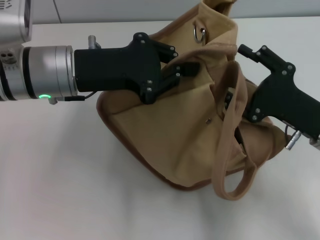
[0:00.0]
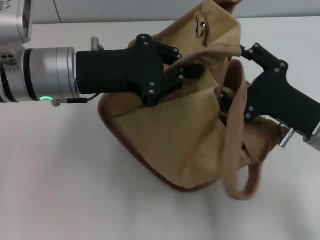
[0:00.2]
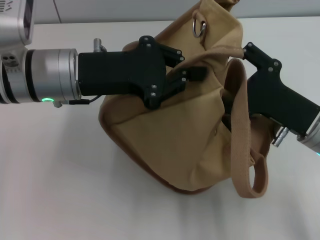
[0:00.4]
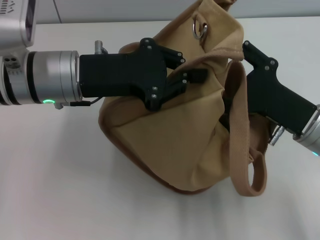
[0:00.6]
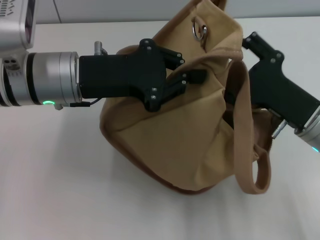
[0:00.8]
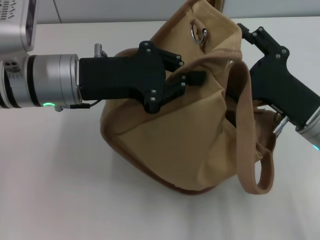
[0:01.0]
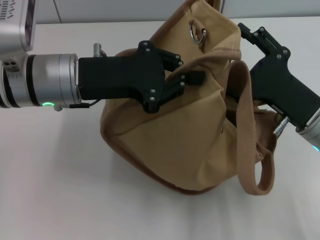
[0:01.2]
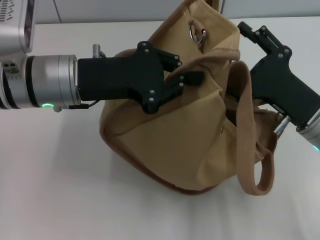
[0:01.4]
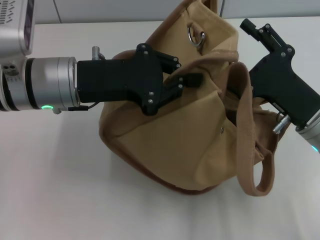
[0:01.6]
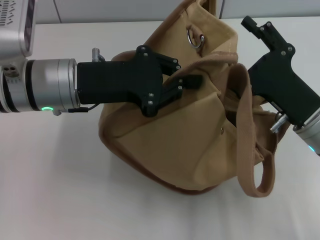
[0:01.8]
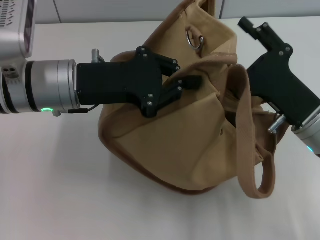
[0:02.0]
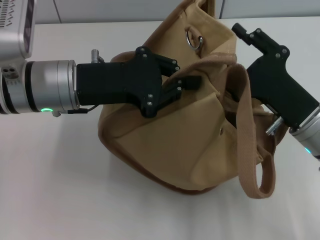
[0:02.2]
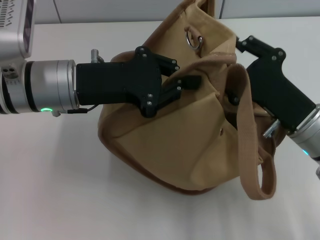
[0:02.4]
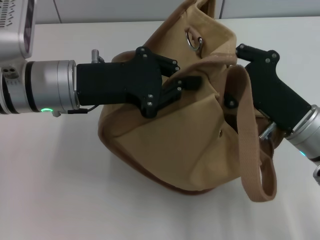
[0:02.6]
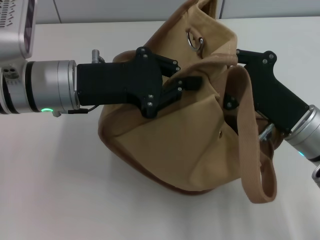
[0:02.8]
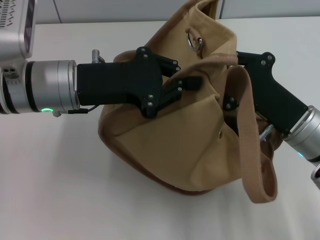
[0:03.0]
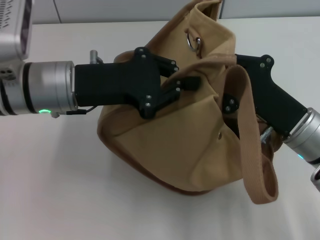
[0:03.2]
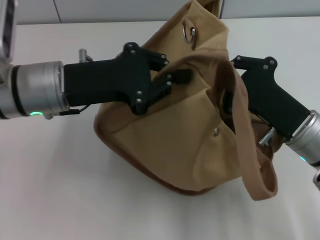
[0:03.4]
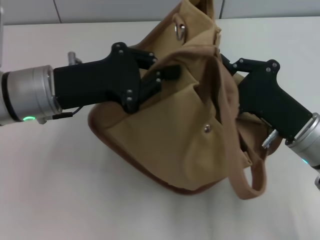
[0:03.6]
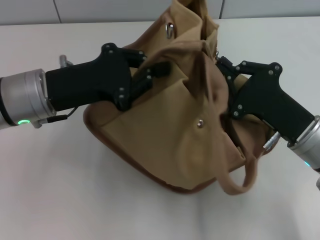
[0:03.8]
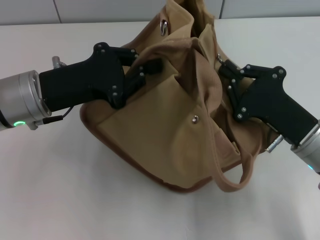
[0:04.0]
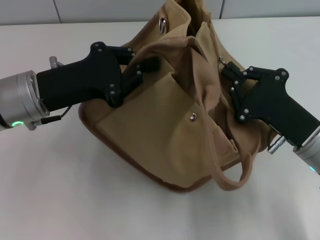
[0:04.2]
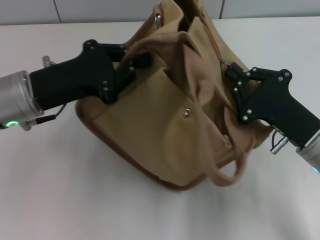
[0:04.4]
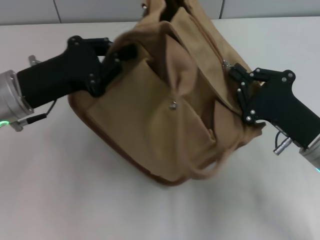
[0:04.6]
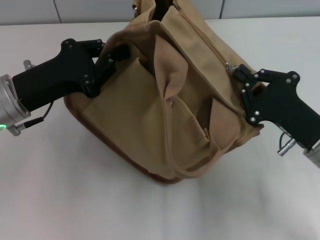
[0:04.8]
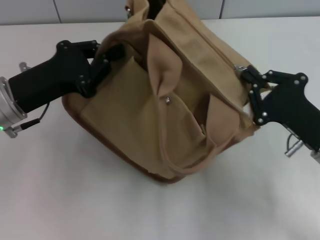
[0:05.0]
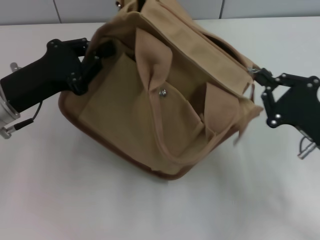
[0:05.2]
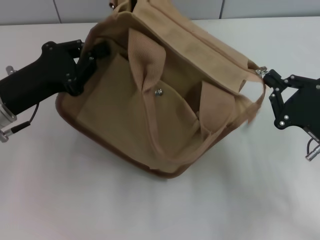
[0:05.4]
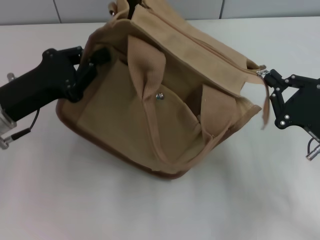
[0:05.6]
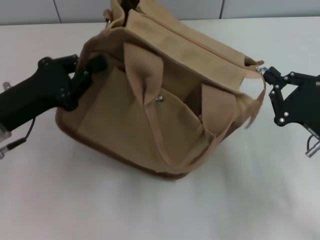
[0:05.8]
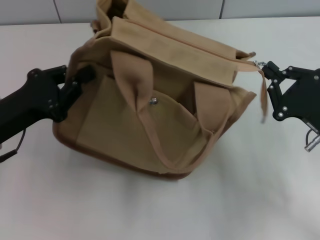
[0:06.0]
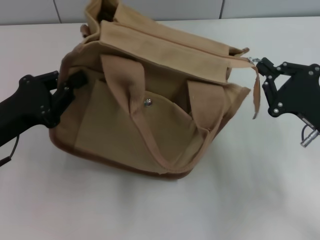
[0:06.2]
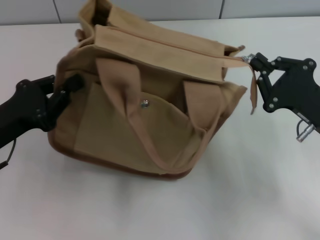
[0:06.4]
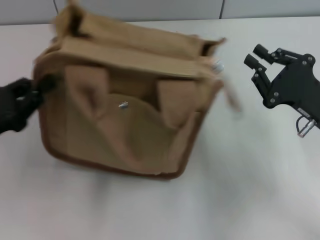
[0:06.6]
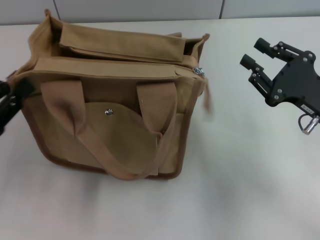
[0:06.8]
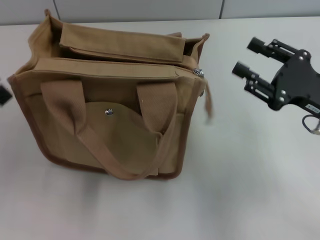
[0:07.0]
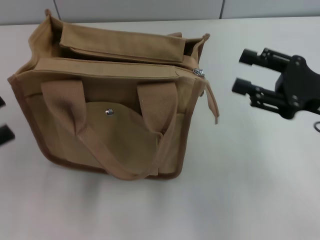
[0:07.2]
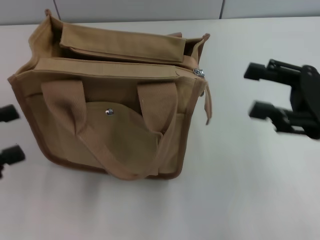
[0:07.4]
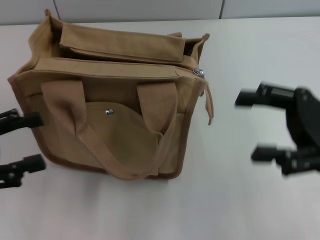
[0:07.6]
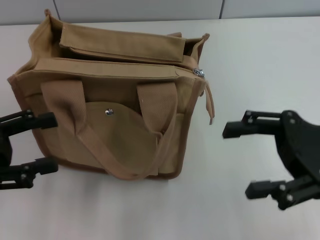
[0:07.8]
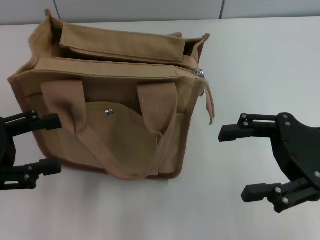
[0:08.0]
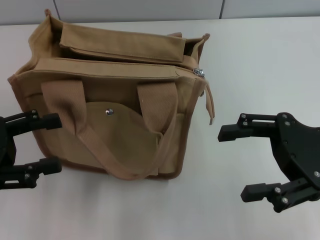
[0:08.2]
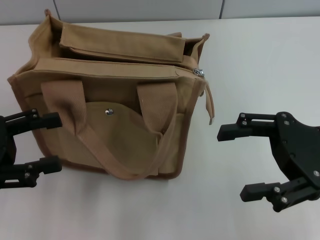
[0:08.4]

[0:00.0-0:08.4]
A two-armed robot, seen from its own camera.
Step, 0:00.0 to 0:06.4: Pull open the zipper with your right hand.
Step, 0:06.8 to 0:07.0: Grab the bag with your left hand.
0:01.4 to 0:02.8: The right gripper closes its fingers.
0:02.8 to 0:04.2: The left gripper changes place by about 5 cm.
0:04.2 to 0:05.6: The right gripper travels to the right by roughly 5 cm. The left gripper ends up some 5 cm from where it was.
0:05.6 to 0:07.0: The left gripper shifts approximately 15 cm to the left and backward, and opens its fingers. Meanwhile the right gripper changes place by about 5 cm, and opens.
0:07.0 to 0:08.4: The left gripper opens its fingers, while the right gripper ends up some 5 cm from where it was, and opens its fingers.

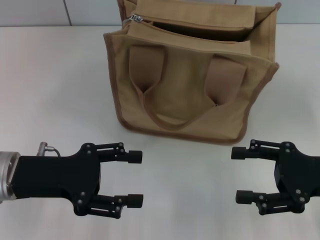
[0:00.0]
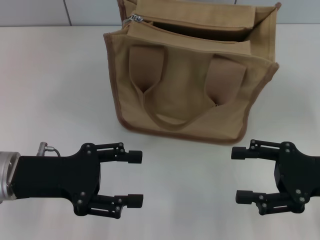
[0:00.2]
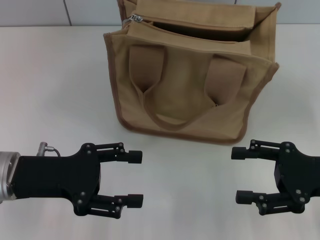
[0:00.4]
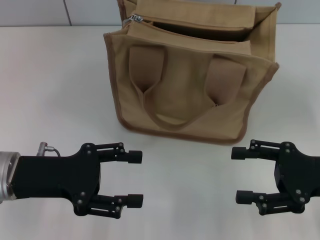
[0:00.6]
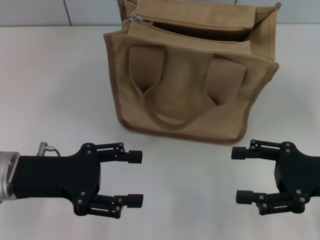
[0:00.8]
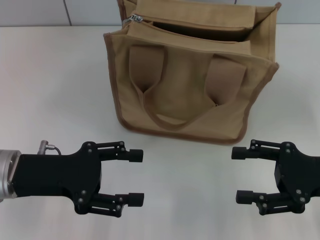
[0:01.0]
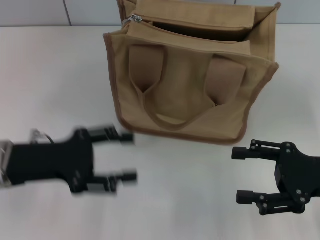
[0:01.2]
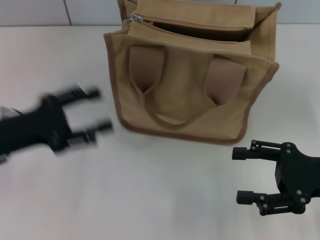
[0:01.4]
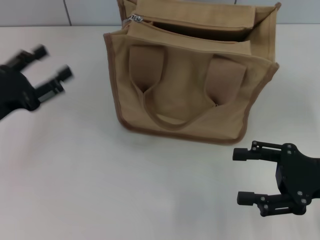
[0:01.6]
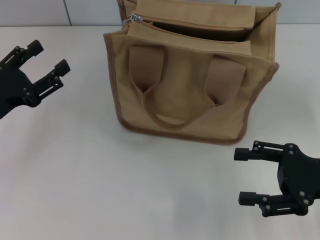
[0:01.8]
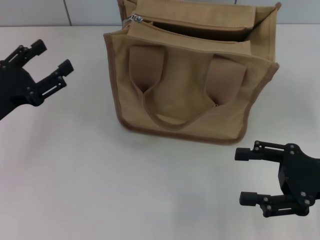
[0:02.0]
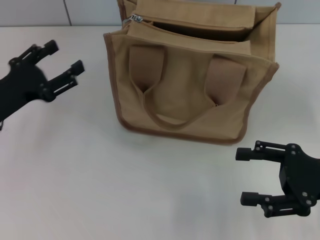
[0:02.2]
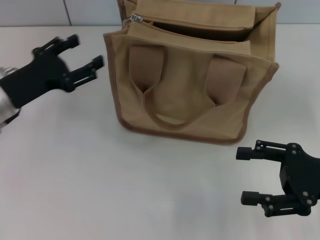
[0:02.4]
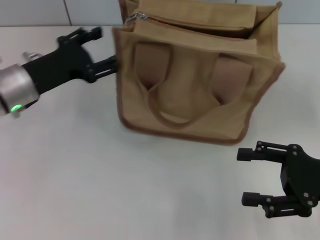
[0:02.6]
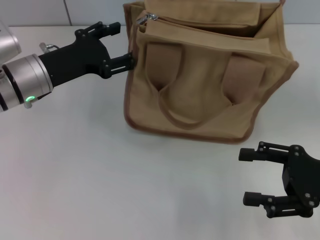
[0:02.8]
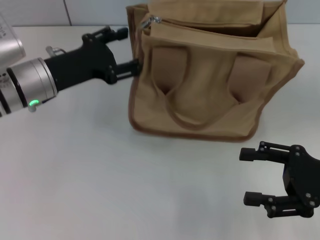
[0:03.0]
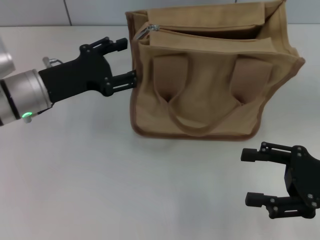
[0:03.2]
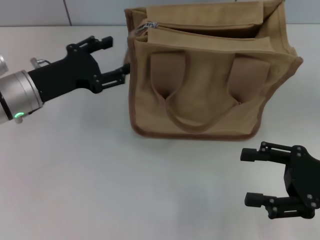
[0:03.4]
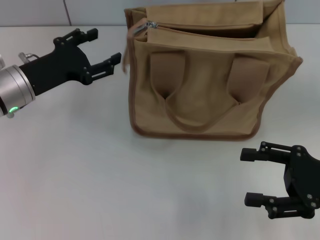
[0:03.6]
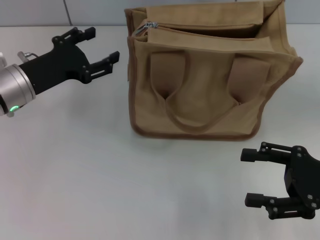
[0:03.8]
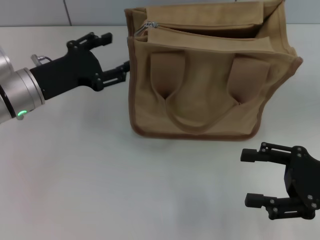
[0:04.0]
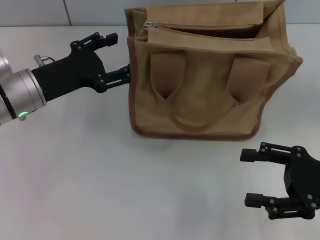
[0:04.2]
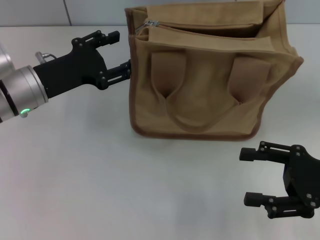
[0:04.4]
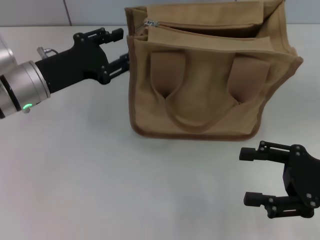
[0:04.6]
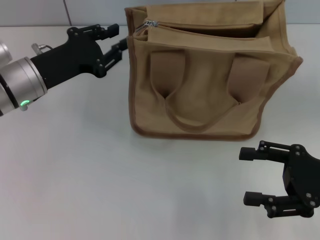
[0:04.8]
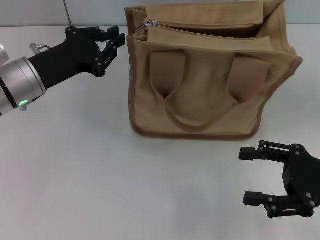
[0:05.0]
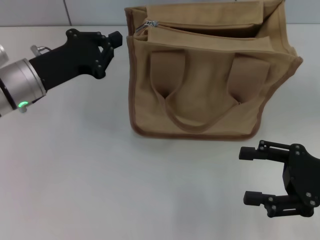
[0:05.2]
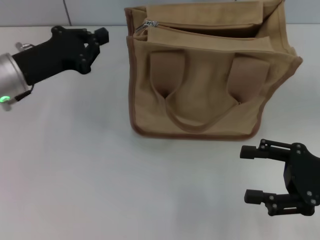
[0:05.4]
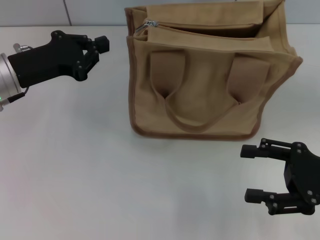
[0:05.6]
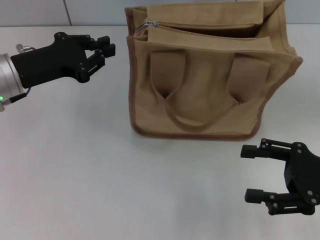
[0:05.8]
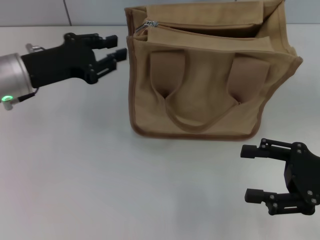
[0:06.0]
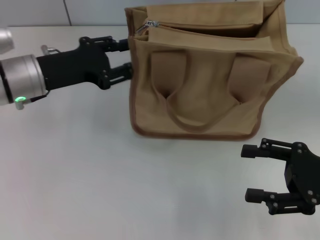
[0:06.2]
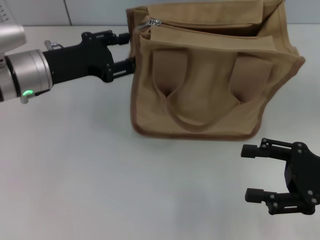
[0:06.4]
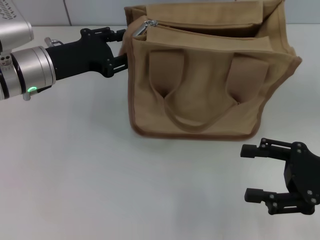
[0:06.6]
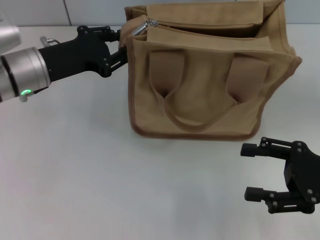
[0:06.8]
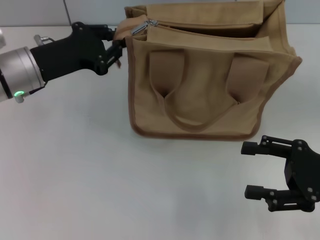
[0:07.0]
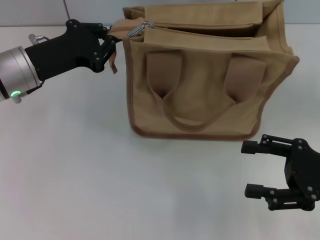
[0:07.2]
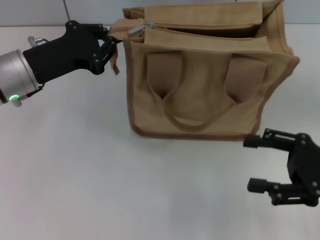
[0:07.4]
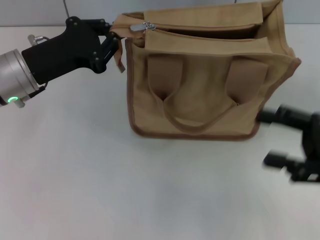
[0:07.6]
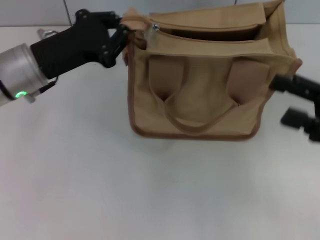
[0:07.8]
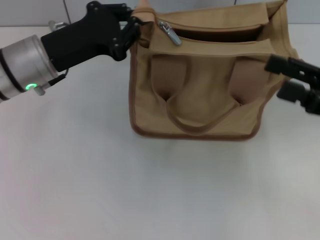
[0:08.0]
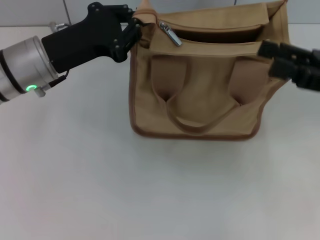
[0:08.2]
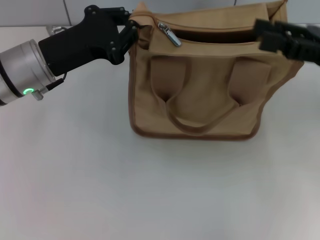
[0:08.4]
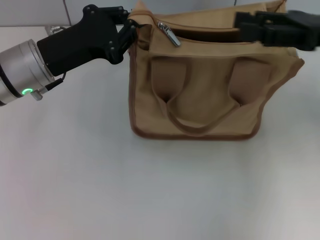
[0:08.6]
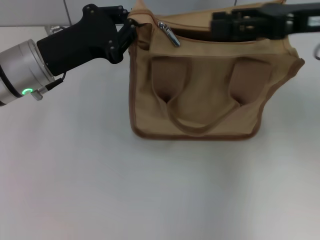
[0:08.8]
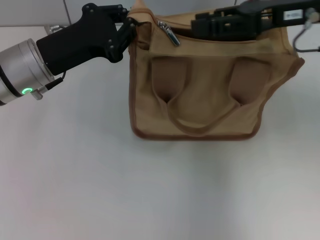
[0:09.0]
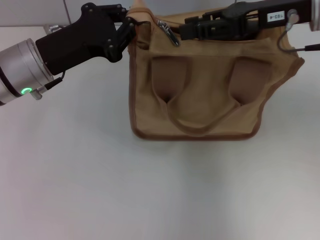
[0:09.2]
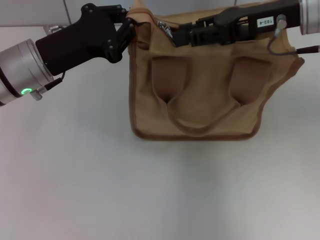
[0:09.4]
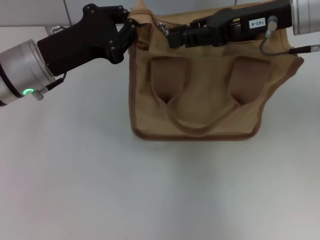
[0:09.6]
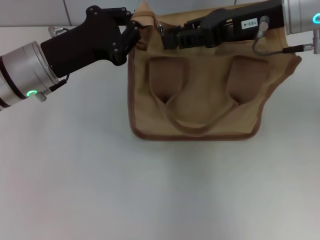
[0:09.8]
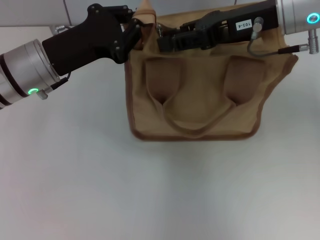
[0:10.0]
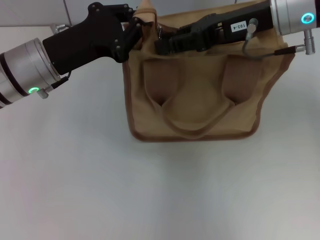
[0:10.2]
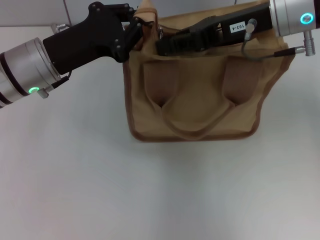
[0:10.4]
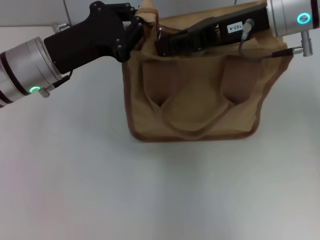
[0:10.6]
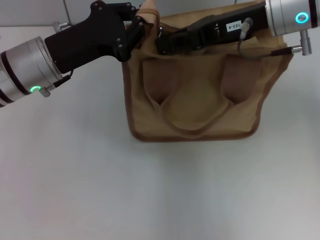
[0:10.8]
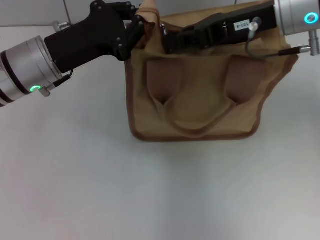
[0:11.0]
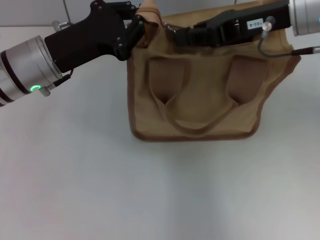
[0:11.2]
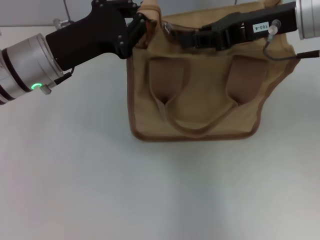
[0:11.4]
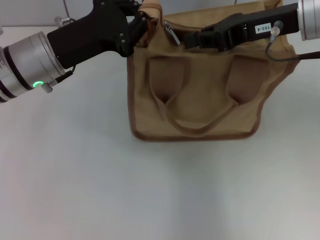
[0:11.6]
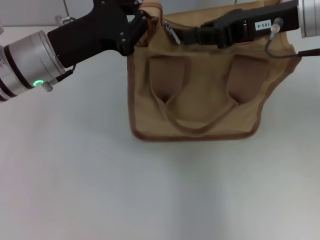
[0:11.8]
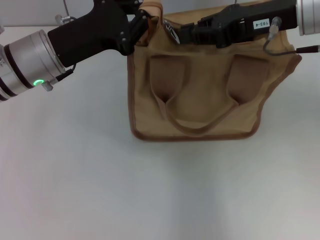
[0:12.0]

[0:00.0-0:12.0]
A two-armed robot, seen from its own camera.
0:00.0 to 0:01.6: The left gripper is displaced to the left by about 5 cm.
0:01.6 to 0:03.0: The left gripper shifts approximately 15 cm forward and to the right.
0:03.0 to 0:04.4: The grippers move only a little.
0:04.4 to 0:06.0: The left gripper closes up.
0:06.0 to 0:07.6: The left gripper opens, then closes once more.
0:07.6 to 0:09.0: The right gripper goes about 20 cm forward, upward and to the left.
0:09.0 to 0:10.4: The right gripper goes some 5 cm to the left.
0:10.4 to 0:12.0: The grippers make only small movements.

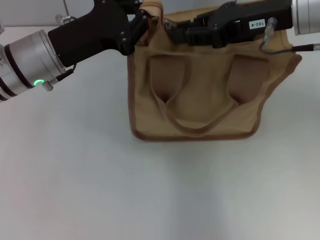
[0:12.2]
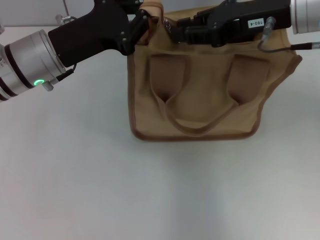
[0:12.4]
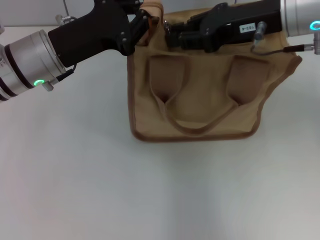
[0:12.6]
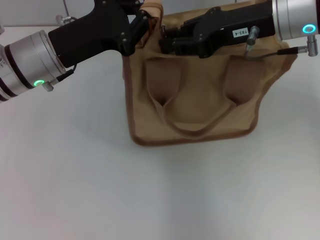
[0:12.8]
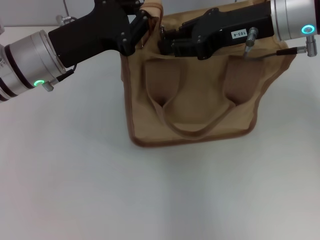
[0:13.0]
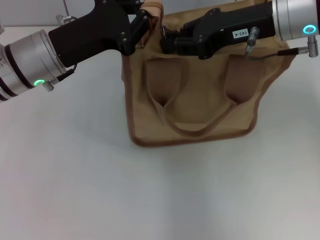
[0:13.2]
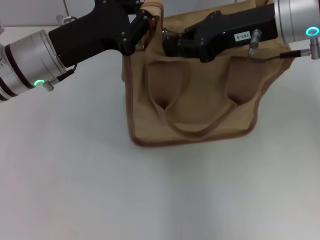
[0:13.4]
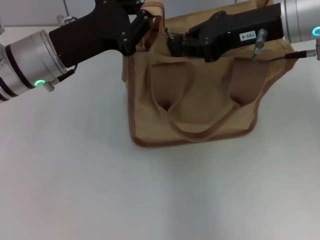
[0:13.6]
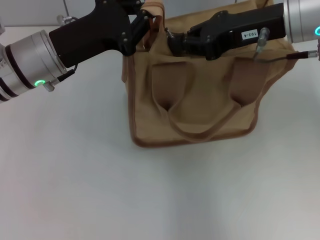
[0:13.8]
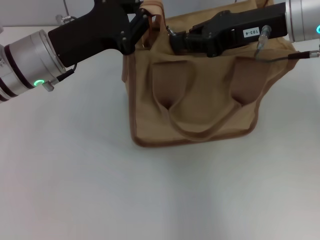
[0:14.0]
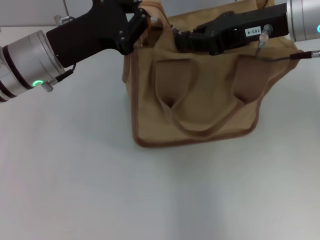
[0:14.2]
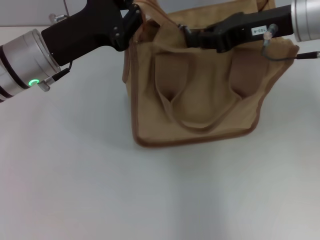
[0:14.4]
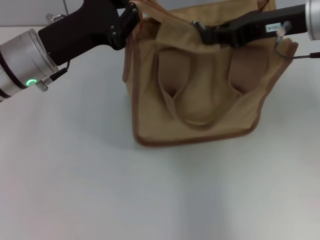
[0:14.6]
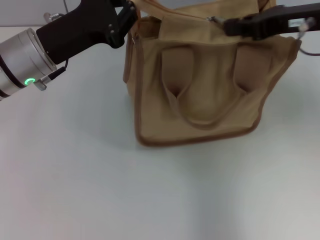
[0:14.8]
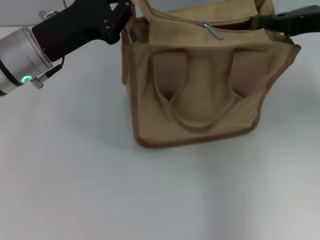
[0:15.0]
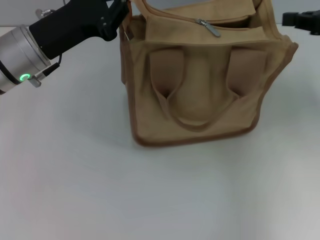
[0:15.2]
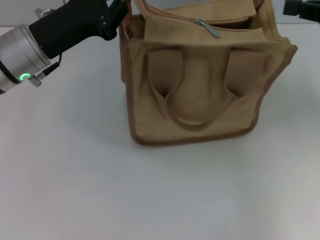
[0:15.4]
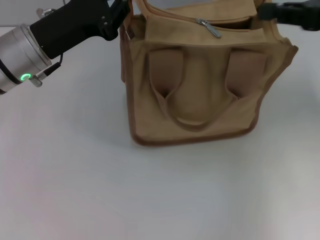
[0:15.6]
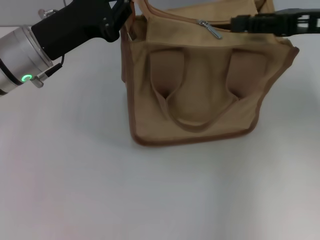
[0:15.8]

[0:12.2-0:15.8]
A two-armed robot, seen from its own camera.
0:12.2 to 0:14.0: The grippers stay close to where they were, moving slightly.
0:14.0 to 0:15.8: The right gripper moves to the right, approximately 10 cm.
